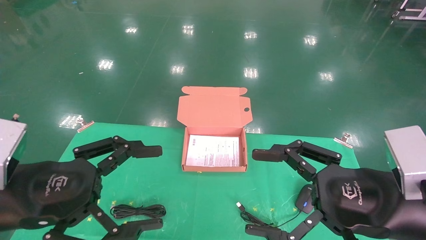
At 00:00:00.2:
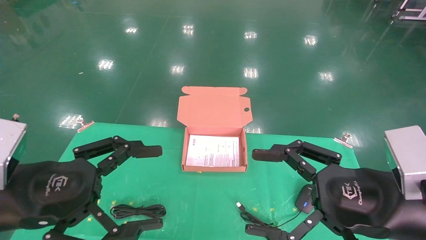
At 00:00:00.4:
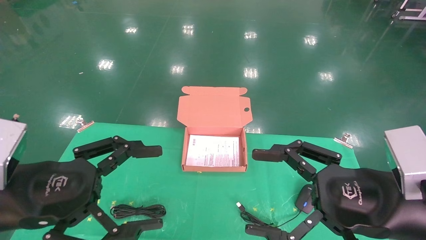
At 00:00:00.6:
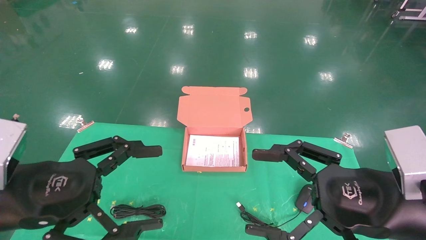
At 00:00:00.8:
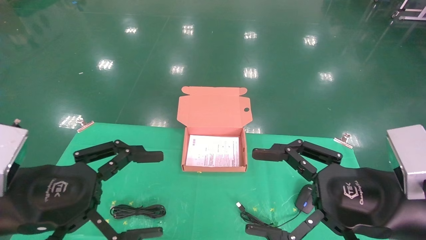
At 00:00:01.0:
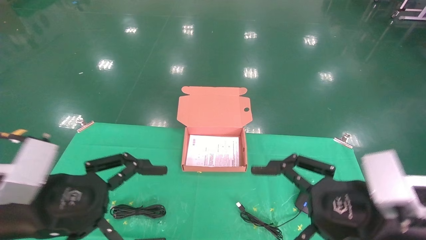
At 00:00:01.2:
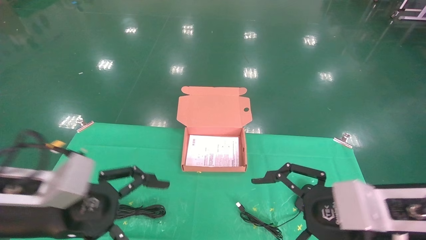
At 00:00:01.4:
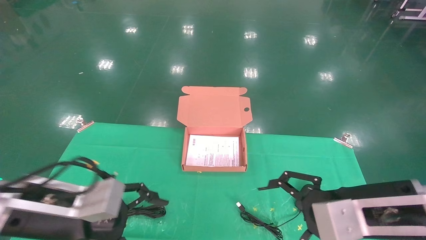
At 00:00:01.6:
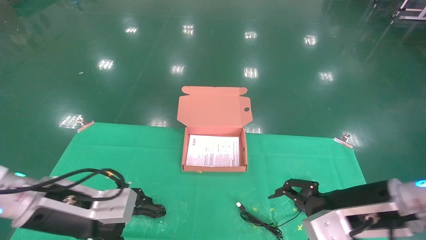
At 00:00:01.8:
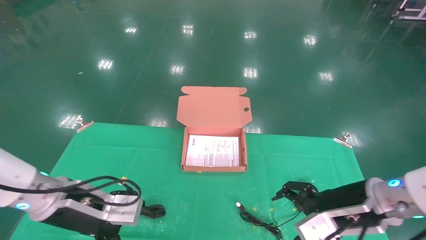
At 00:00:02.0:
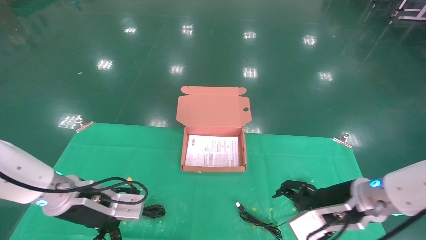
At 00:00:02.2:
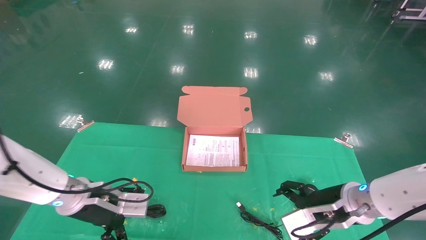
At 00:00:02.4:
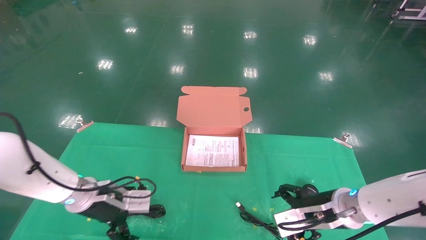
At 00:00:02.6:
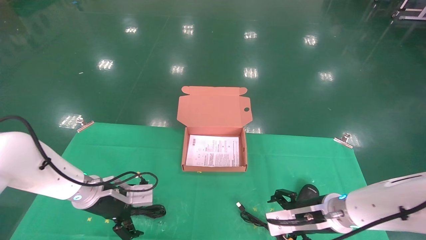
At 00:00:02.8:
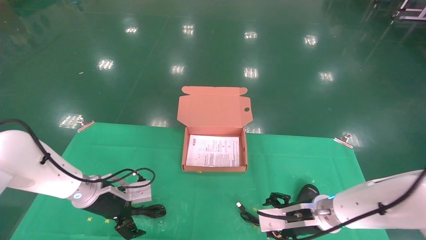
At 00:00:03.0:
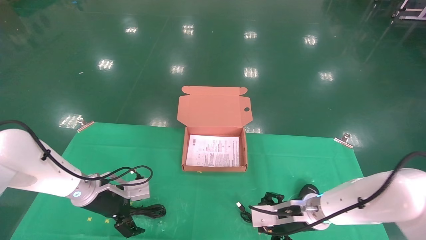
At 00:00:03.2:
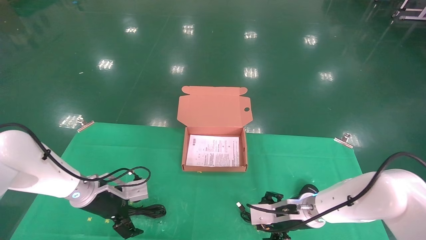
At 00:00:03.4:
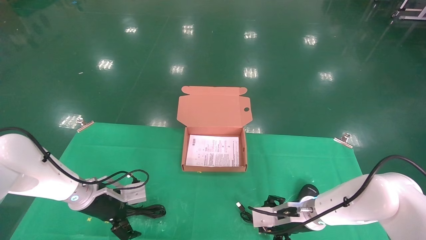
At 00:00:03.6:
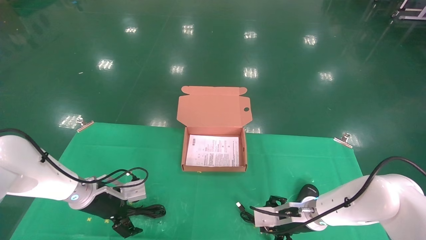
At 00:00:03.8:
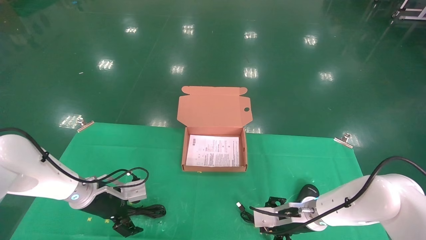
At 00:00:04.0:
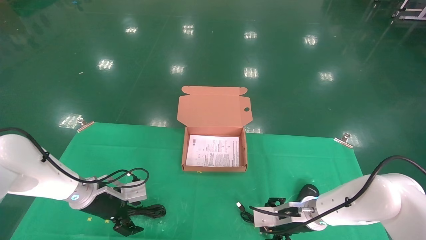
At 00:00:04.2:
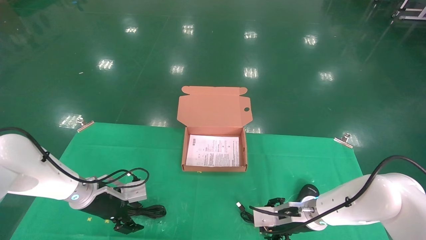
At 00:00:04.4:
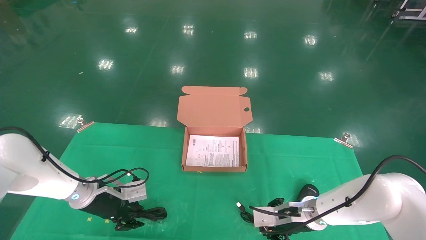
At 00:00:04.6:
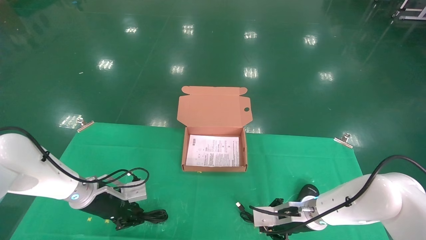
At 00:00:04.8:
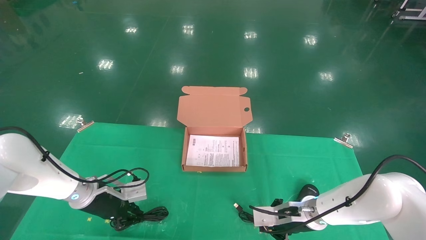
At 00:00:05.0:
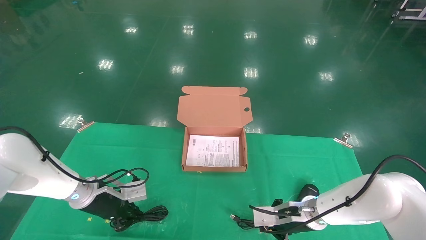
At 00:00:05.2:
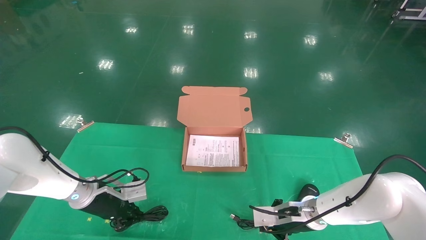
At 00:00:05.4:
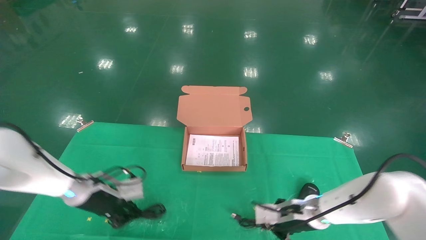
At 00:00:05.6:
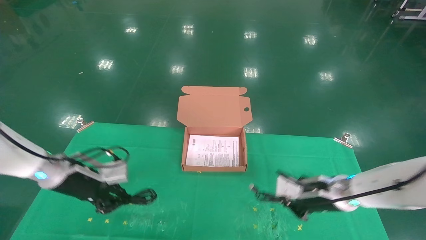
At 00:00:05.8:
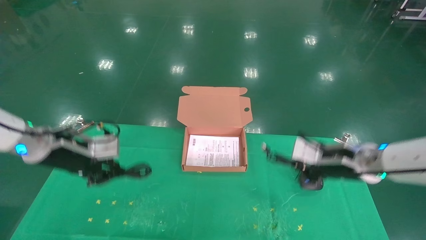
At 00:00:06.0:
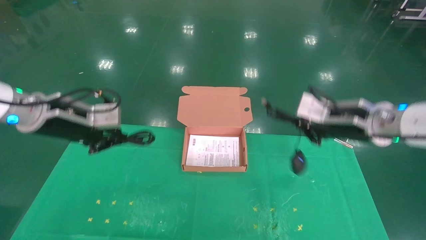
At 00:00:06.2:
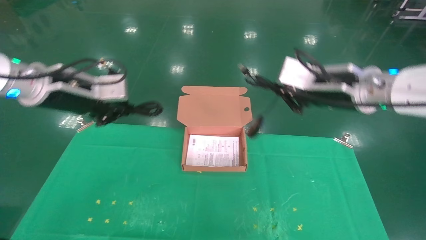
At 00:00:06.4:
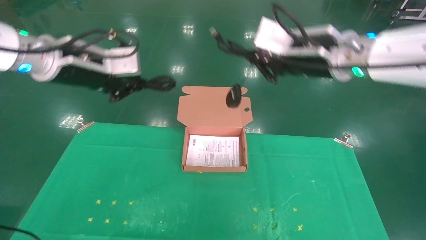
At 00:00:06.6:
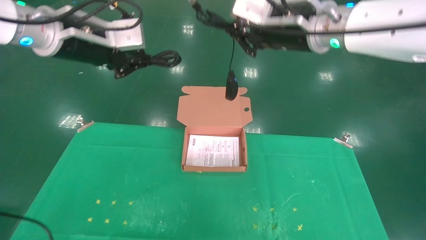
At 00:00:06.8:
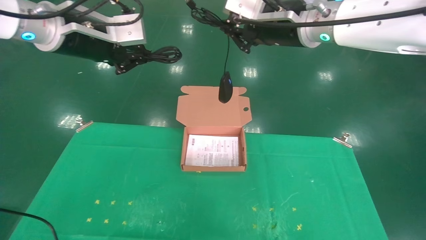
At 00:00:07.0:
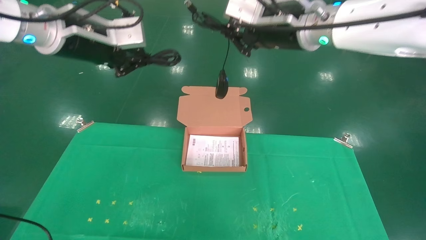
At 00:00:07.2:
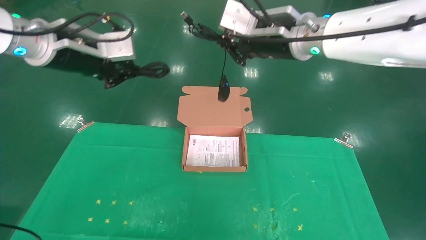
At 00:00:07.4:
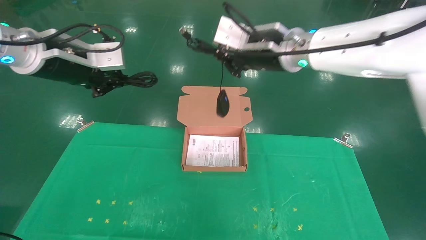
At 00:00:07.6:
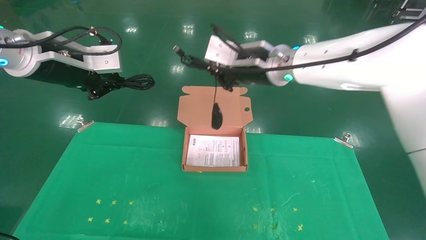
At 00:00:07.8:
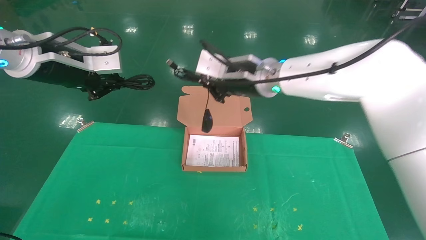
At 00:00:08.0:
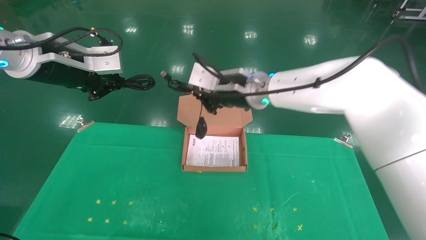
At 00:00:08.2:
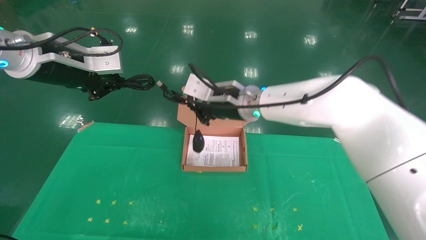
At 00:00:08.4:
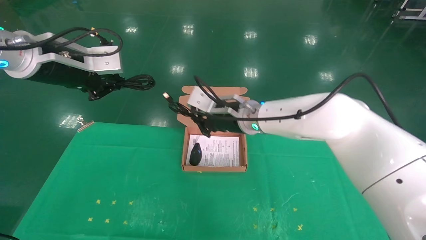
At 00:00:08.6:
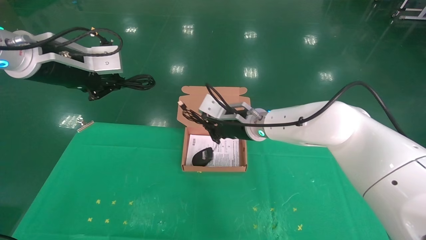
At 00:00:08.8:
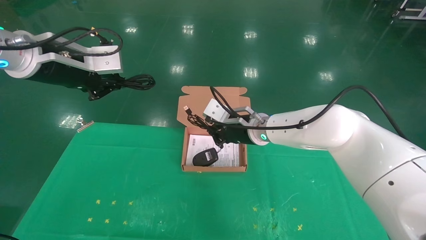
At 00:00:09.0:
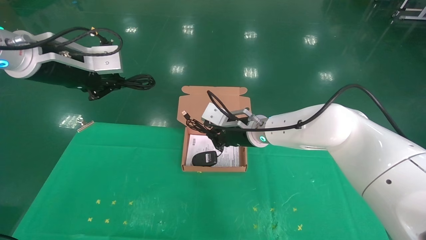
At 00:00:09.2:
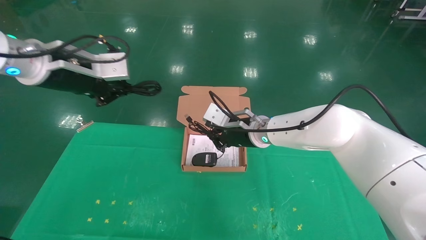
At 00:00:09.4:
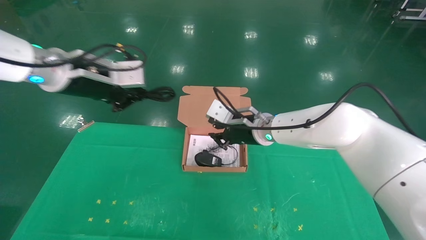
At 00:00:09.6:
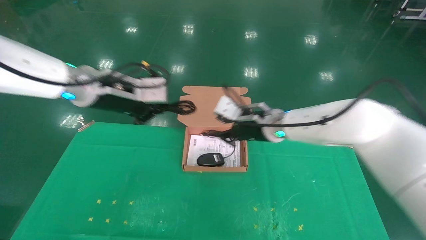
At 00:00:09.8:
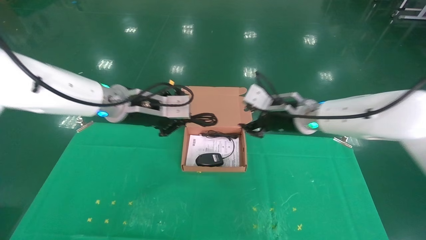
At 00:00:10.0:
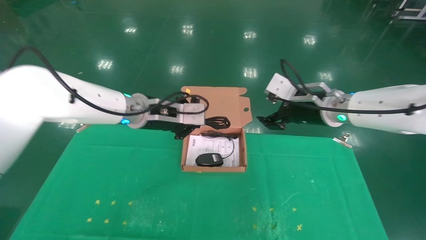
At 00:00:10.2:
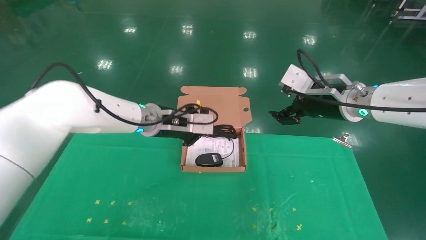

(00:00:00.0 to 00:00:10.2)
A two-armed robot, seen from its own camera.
Task of the whole recording: grasp data cable left put into box grasp mouse right put into box.
Step, 00:00:01.2 - 00:00:05.8: Grab and pick up both the mouse and power cord from the accessory packaging area at the same time.
00:00:00.0 - 00:00:01.4: The left gripper is displaced forward by roughly 5 cm. Meanwhile the right gripper moves approximately 5 cm.
00:00:01.4 - 00:00:03.0: The two grippers go about 20 cm forward and downward.
00:00:03.0 - 00:00:04.4: The left gripper closes up, while the right gripper closes its fingers.
00:00:04.4 - 00:00:05.8: Both grippers move upward, some 15 cm. The right gripper closes its fingers, while the left gripper closes its fingers.
00:00:05.8 - 00:00:07.2: The left gripper is displaced upward by some 20 cm, while the right gripper moves upward and to the left, approximately 25 cm.
00:00:07.2 - 00:00:08.8: The right gripper moves downward and forward, some 20 cm.
00:00:08.8 - 00:00:10.2: The right gripper shifts approximately 20 cm to the right, upward and backward, and opens its fingers; the left gripper is displaced to the right, downward and forward by about 25 cm.

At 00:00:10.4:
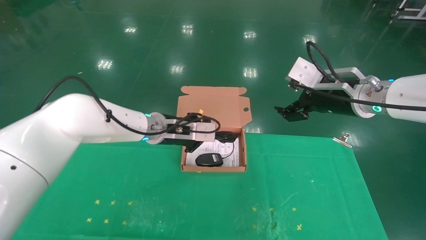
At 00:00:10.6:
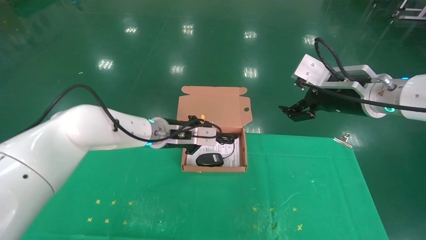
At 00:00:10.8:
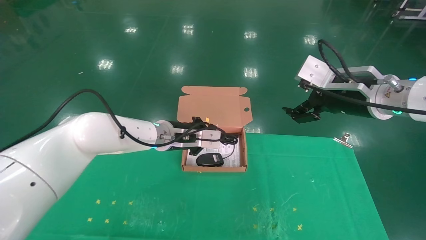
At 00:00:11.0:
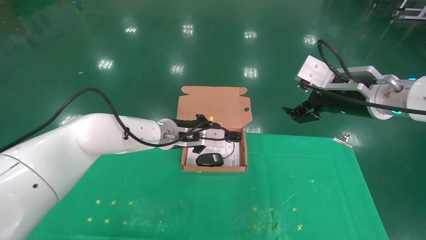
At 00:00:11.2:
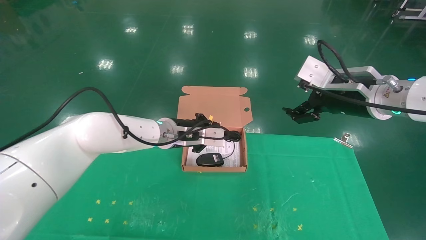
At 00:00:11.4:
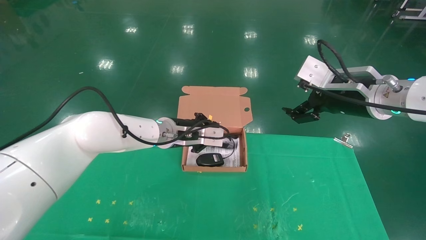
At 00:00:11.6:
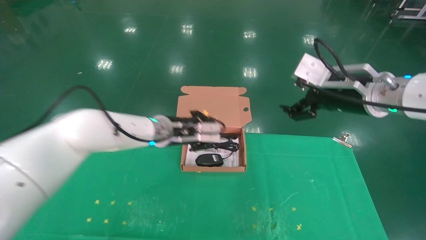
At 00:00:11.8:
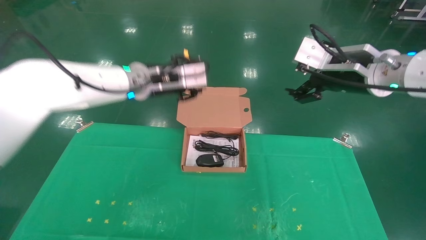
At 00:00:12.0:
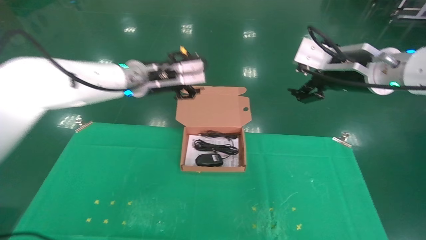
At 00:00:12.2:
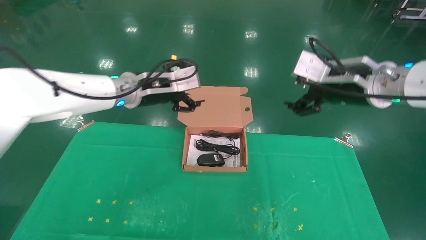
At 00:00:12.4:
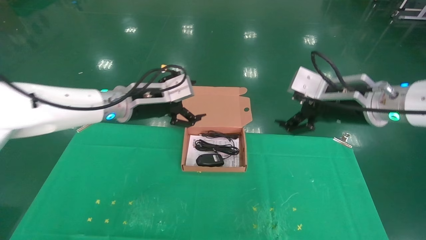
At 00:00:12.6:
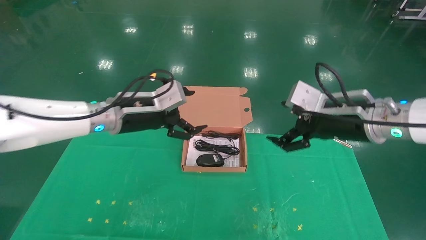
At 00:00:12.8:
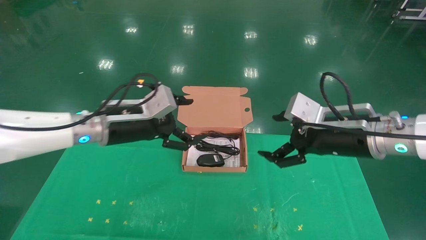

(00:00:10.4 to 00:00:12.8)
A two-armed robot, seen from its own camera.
Task of the whole recording: grasp data cable left put into box grasp mouse right put into box.
00:00:10.4 - 00:00:11.6: The grippers move only a little.
00:00:11.6 - 00:00:12.8: The right gripper shifts roughly 5 cm downward. Meanwhile the left gripper travels backward and to the left by about 10 cm, and opens its fingers.
